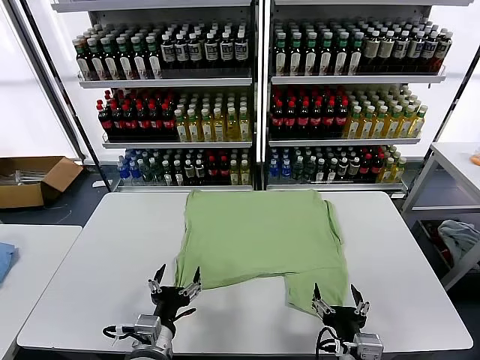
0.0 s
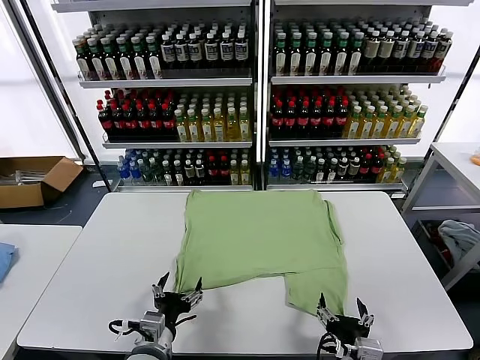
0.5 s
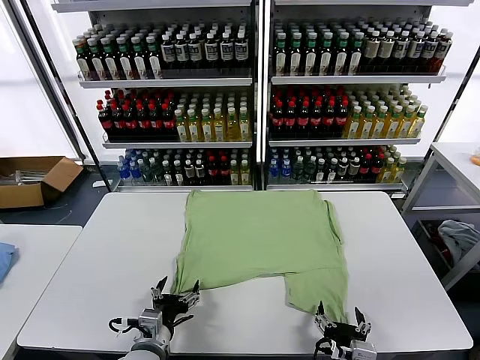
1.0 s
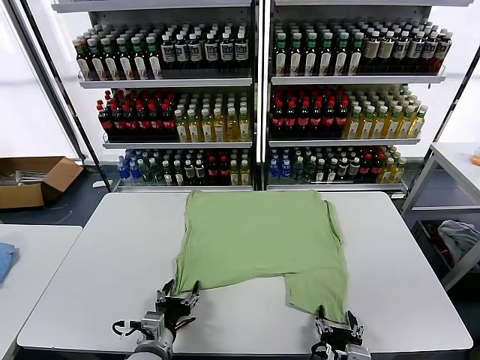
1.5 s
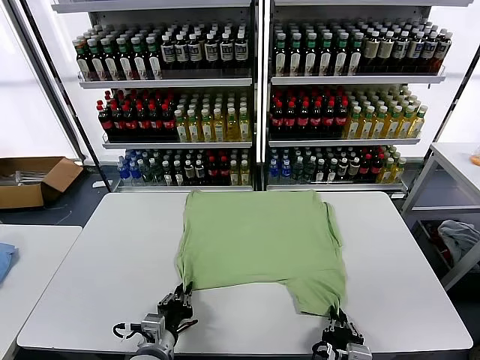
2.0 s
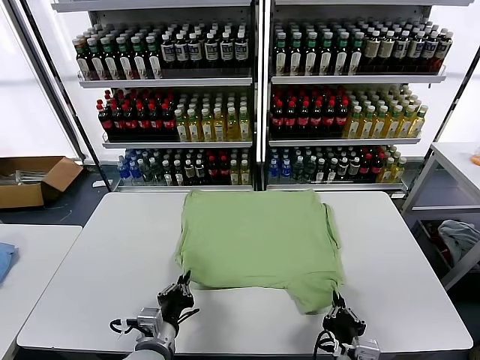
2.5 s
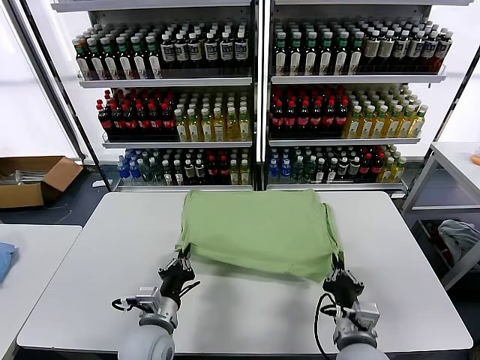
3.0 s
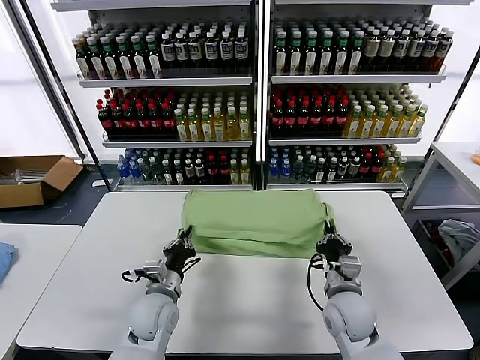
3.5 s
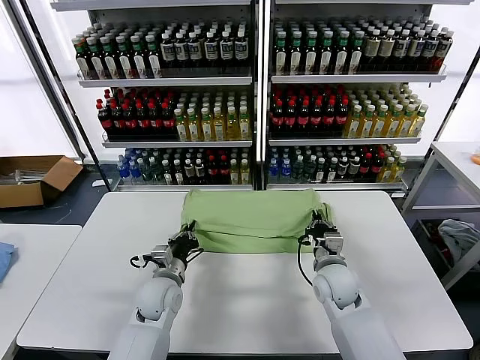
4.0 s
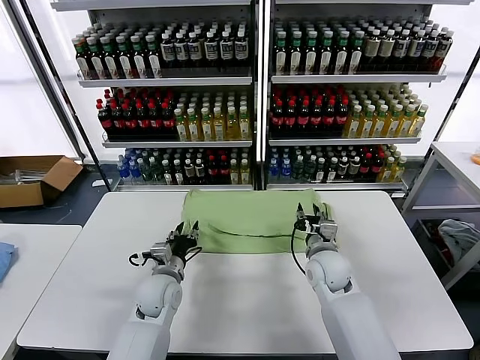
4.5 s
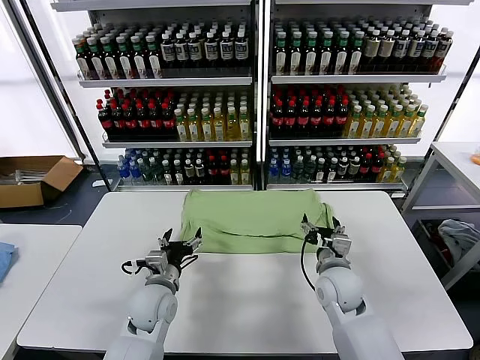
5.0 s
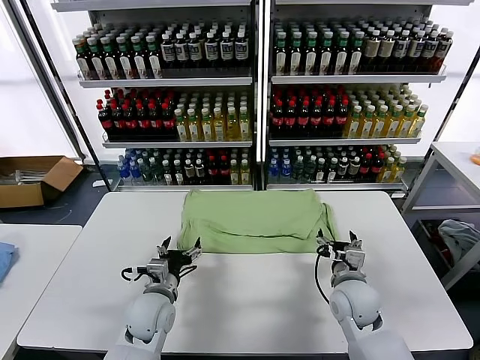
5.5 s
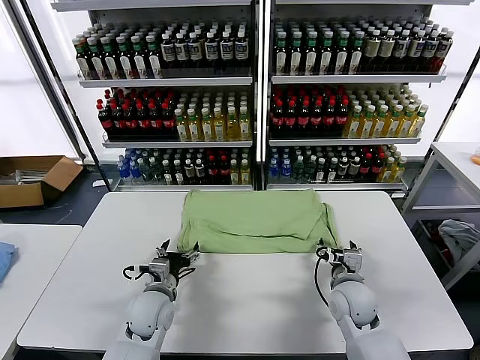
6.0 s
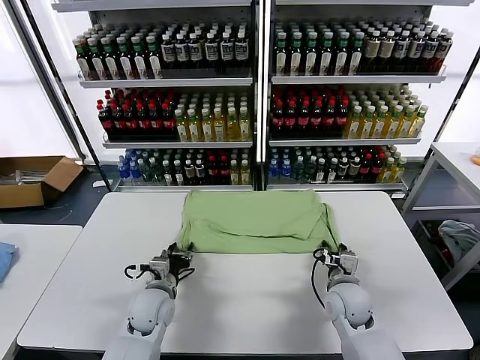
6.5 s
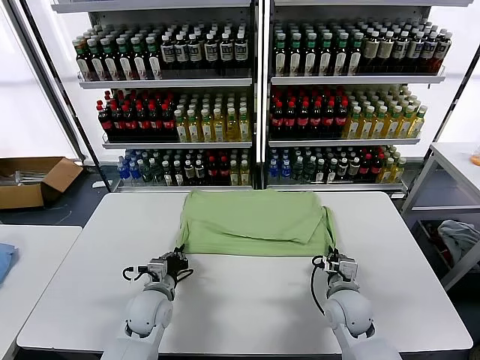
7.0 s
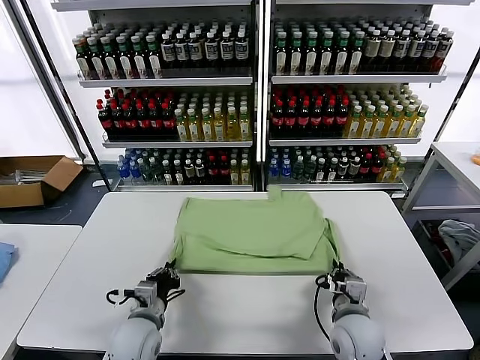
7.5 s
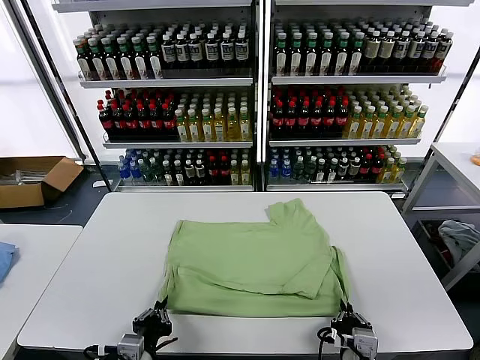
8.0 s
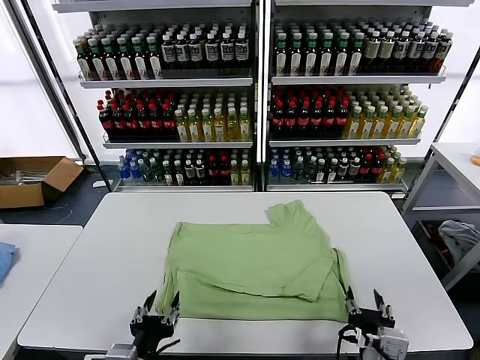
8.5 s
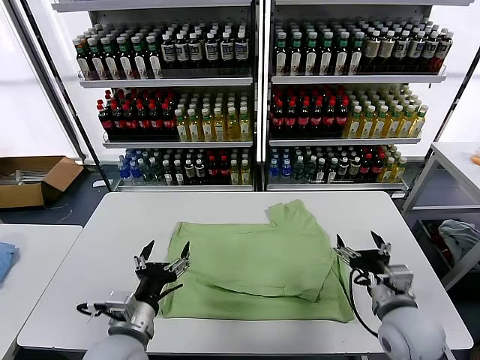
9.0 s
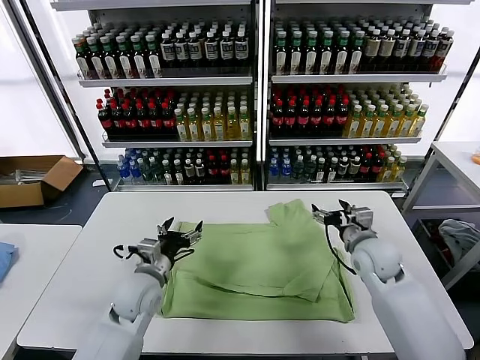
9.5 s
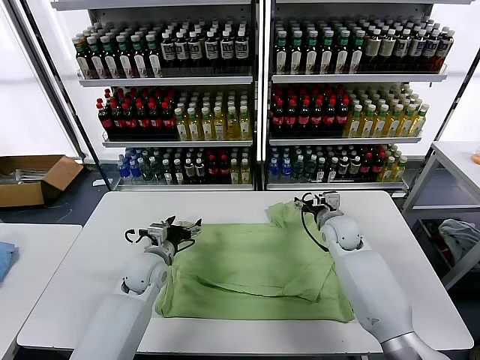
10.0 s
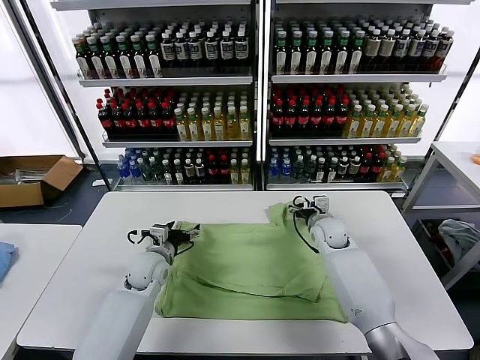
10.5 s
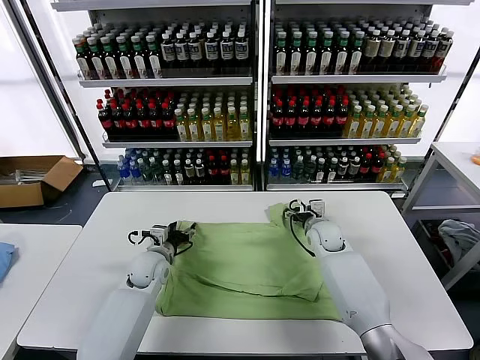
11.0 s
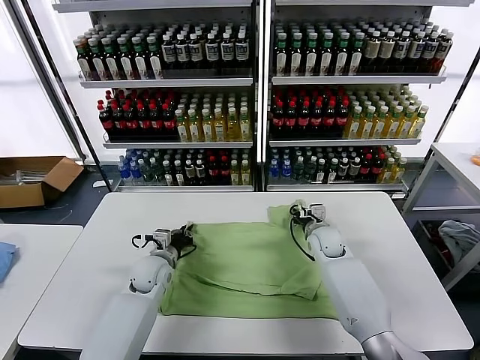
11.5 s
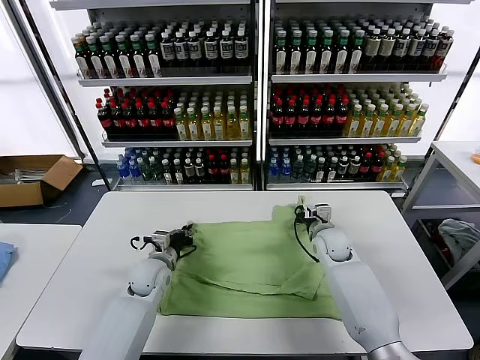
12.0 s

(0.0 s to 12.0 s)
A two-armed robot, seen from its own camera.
Task of the whole recording: fold and organize the clothes.
Step, 0.0 s - 2.0 s: use both grippers simultaneously to clamp the lower edge of the clothing fabric.
Step, 2.5 s - 4.0 s: use both grippers to drag the lower edge of the fabric forward and fold it over the upper edge.
Step, 5.0 s - 8.5 s: Drag the clothes downward with both gripper.
Step, 9.0 s - 11.5 s: use both grippers simultaneously to clamp the upper edge of the clothing fabric.
2.0 s - 4.0 s: The left gripper heads forward, covering some 15 cm; the right gripper shifts about 25 cm forward.
4.0 s - 6.0 s: The right gripper ends up about 5 cm from where it was, and opens up, while the left gripper opens.
6.0 s - 8.0 s: Both grippers move backward, roughly 20 cm. The left gripper closes. The right gripper closes up.
8.0 s - 10.0 s: The two grippers go approximately 30 cm forward. The left gripper opens, while the right gripper opens.
10.0 s - 12.0 s: The left gripper closes up; the right gripper closes.

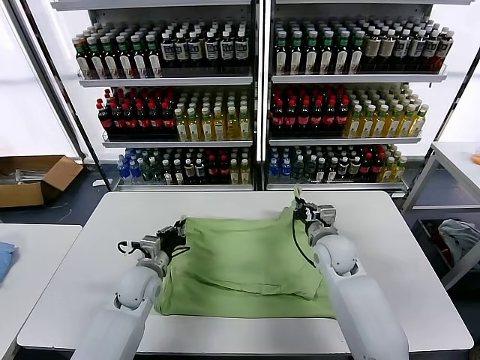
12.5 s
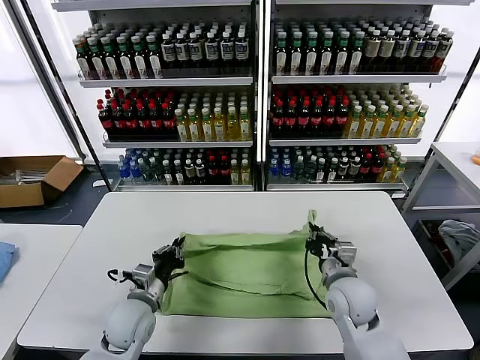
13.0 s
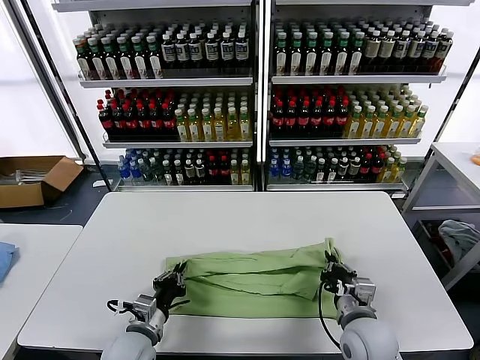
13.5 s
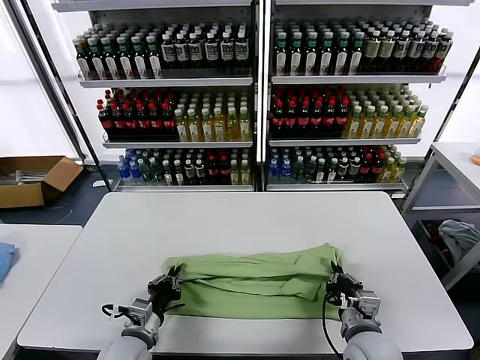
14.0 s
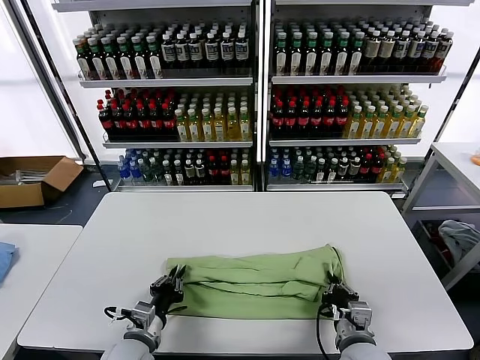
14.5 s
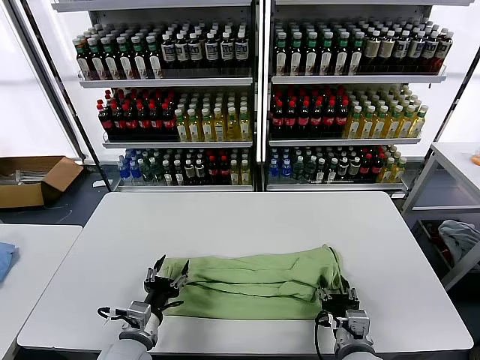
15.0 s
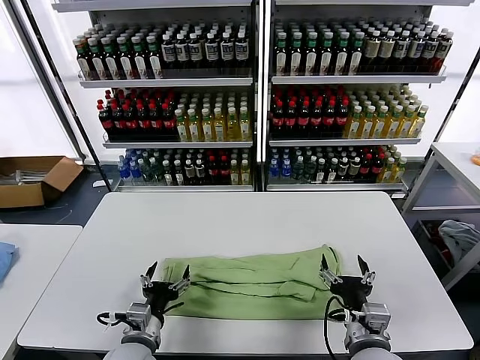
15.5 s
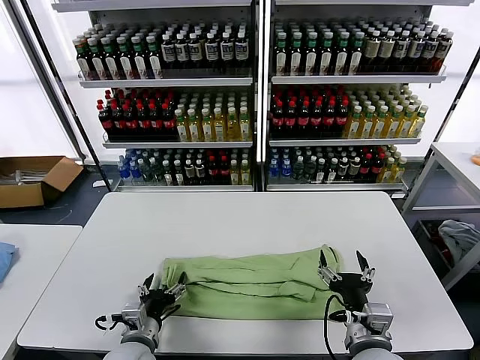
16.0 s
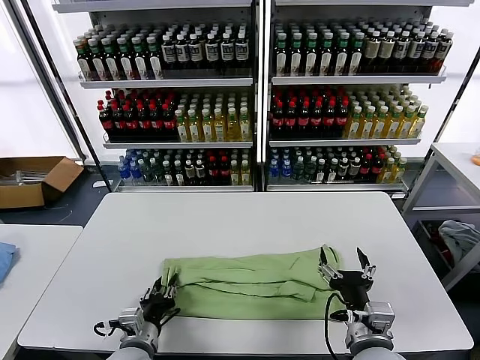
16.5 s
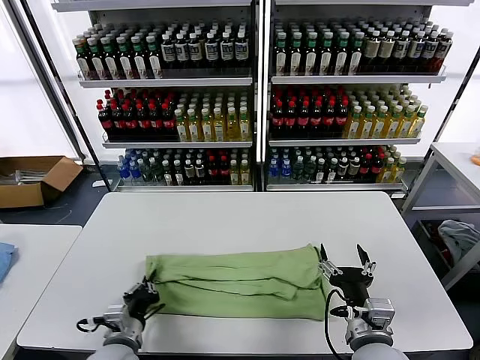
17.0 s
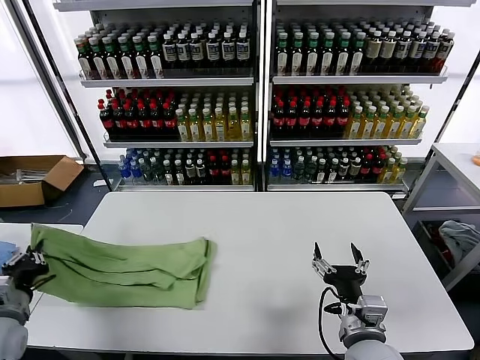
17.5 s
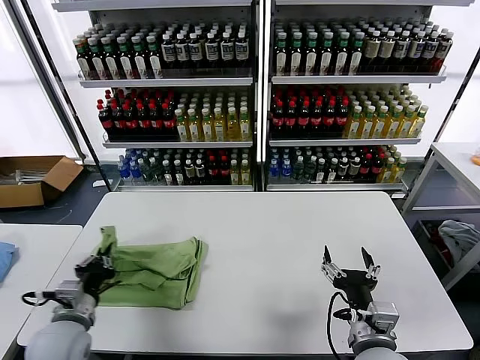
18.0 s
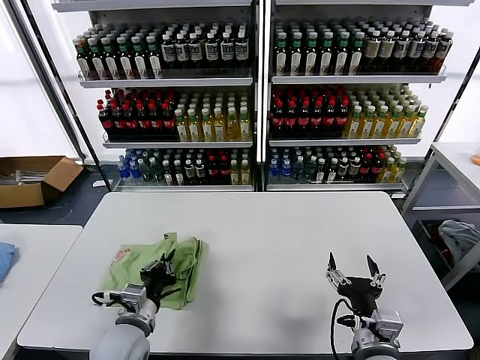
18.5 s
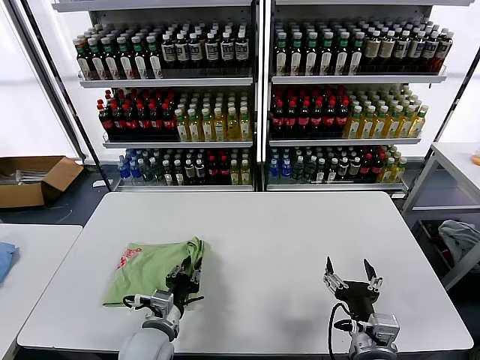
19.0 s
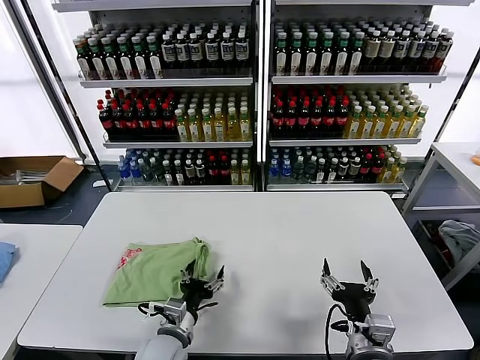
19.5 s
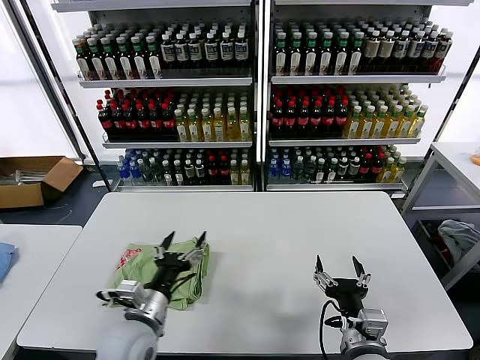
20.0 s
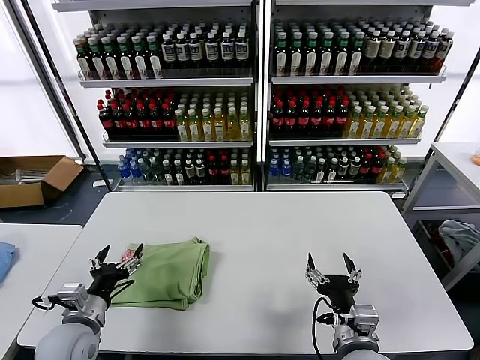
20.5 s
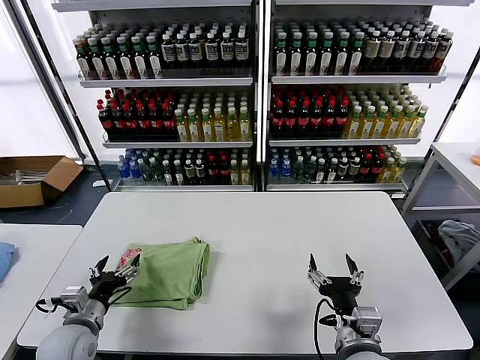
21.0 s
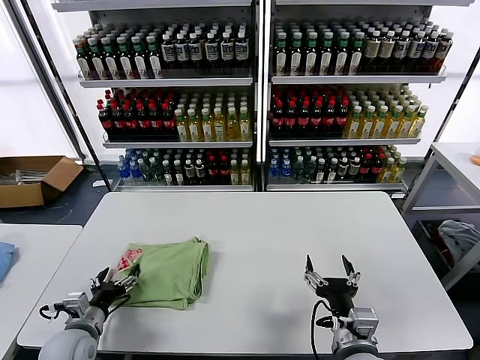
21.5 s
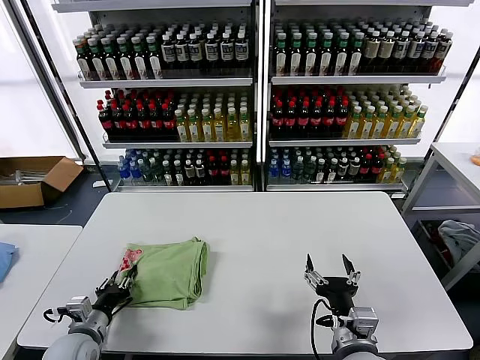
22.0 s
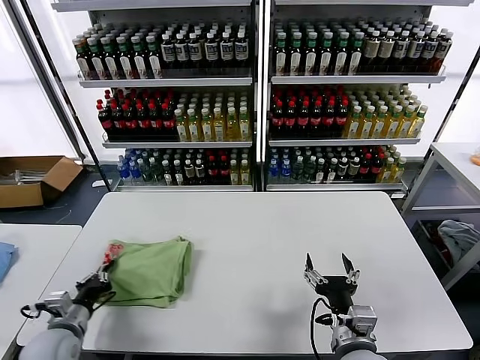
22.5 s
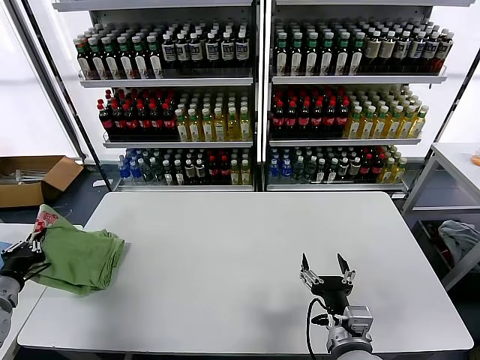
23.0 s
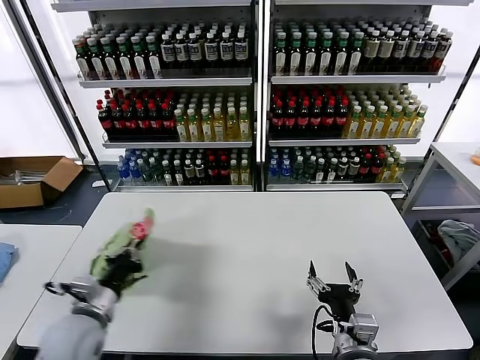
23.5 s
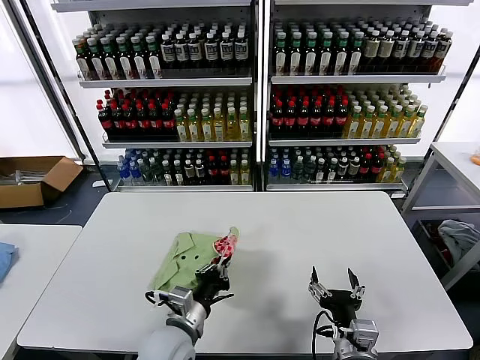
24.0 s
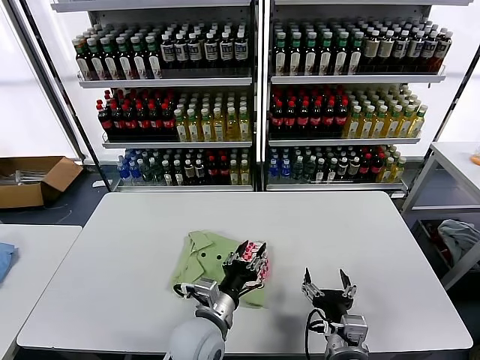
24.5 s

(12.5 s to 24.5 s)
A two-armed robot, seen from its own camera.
Task of the whole recording: fold and organize the clothes.
Step, 12.5 s - 15.0 s: use both grippers to drag the upper edge of the fabric backward and fold it over the lower edge.
Step, 15.5 s - 16.5 s: use the left gripper to clamp the left edge of the fabric.
Step, 17.0 s - 19.5 s: use the left gripper to drag the left edge of the fabric to the left and folds it over the right edge.
Step, 20.0 s - 24.5 s: Flip the folded clothes over with left gripper.
12.5 s - 14.5 s: The grippers both shift backward by roughly 20 cm.
14.5 s - 16.5 s: The left gripper opens, then closes once more. The right gripper goes some 5 cm upward, and opens its fingers.
16.5 s - 18.5 s: The left gripper travels upward by approximately 5 cm, moves some 20 cm to the left and comes back, and closes.
18.5 s - 20.5 s: The left gripper heads to the left, covering approximately 10 cm, and opens up.
20.5 s - 22.5 s: The left gripper is displaced to the left and downward by some 10 cm, and closes.
22.5 s - 24.5 s: The left gripper moves to the right, about 30 cm, and opens its fingers.

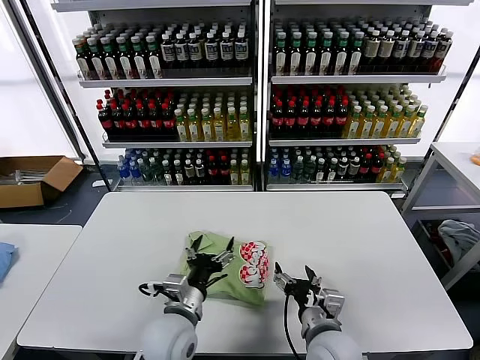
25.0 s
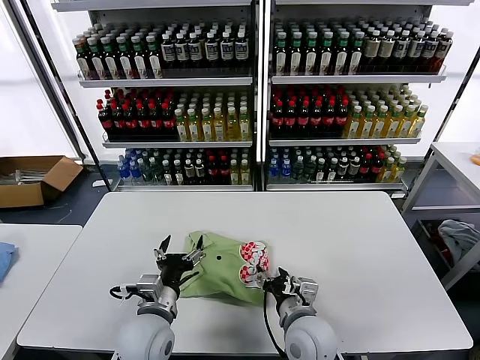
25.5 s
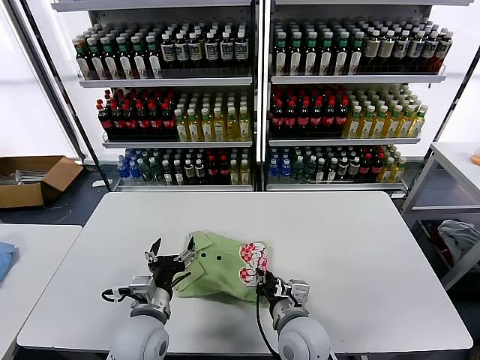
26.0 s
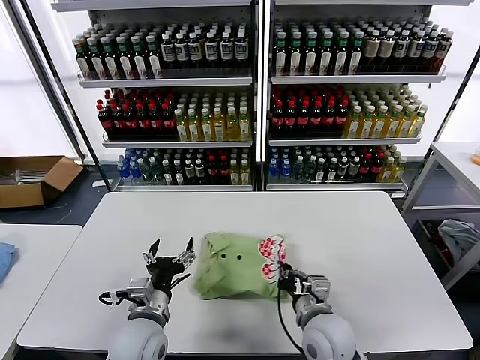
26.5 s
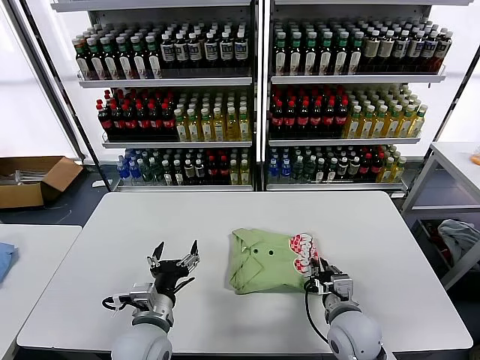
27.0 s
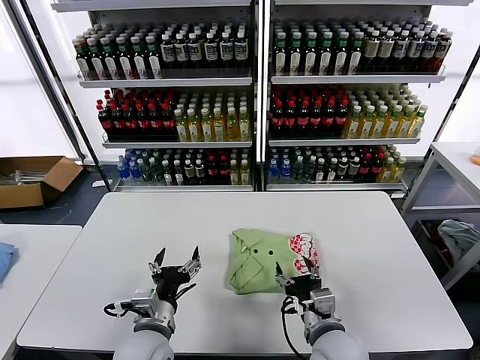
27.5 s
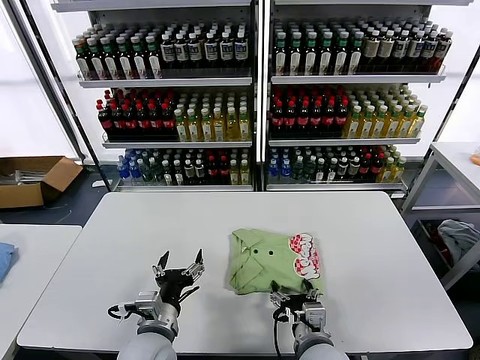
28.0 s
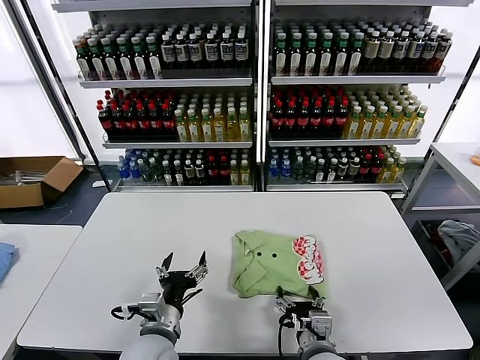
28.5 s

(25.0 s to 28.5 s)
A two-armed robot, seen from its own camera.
Task of the whole recording: fold and organize the clothes.
25.0 s - 27.0 s: The left gripper moves to the left, about 5 cm. Meanwhile the right gripper travels to the right by some 5 cm, and closes up.
27.0 s - 28.5 s: The right gripper shifts about 10 cm backward and to the left, and opens its fingers.
